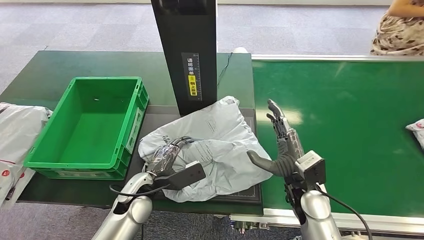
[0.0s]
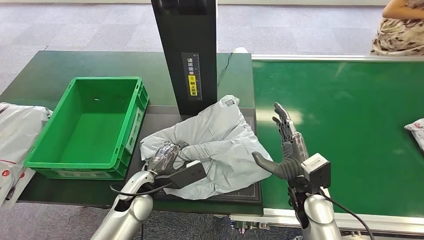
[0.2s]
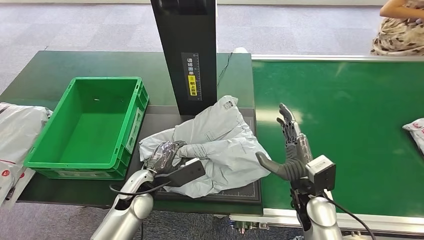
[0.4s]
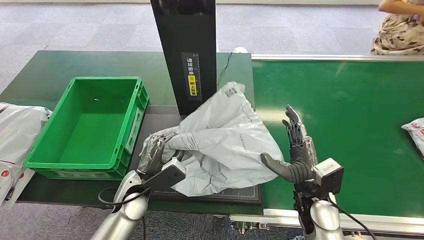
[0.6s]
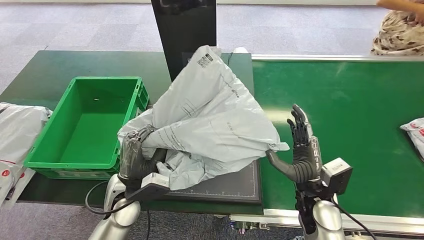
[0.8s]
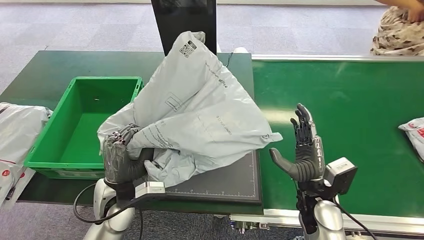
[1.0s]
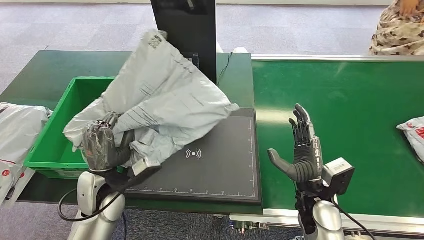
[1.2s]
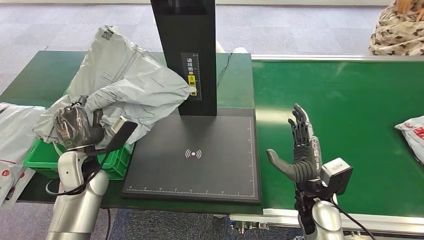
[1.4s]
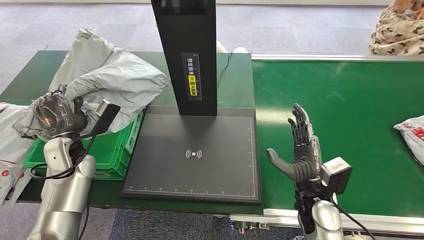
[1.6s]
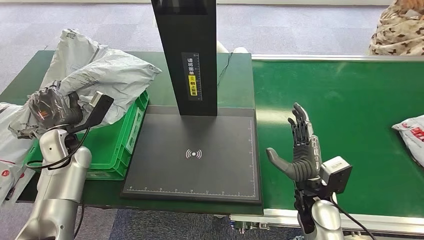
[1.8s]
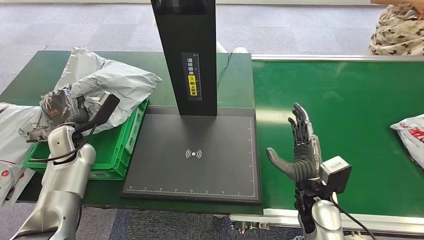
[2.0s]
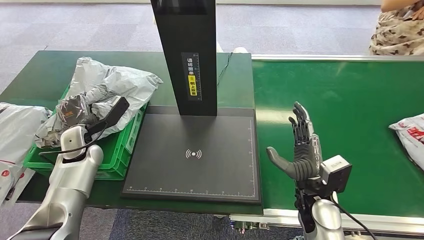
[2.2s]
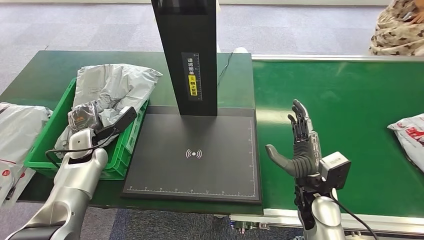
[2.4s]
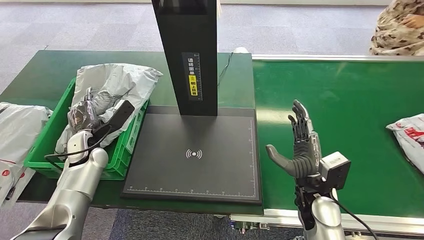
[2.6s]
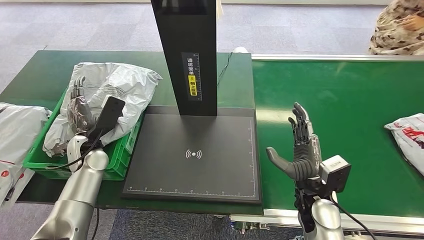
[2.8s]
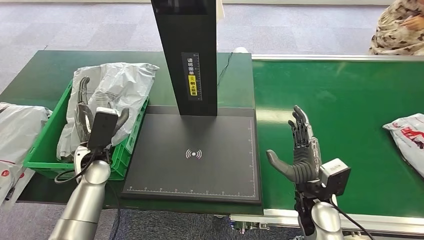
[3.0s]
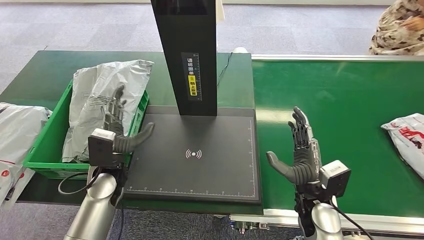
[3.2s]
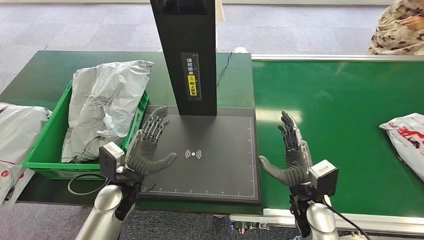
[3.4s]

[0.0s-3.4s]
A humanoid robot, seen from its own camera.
Step, 0.0s to 1.2s: Pick up the package from the inbound machine.
Step, 1.4s to 3.4s: Place the package into the parcel locker.

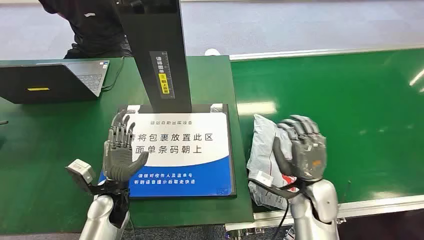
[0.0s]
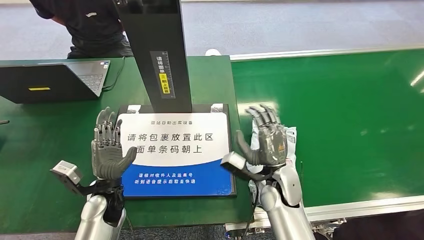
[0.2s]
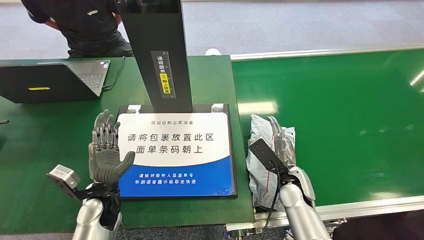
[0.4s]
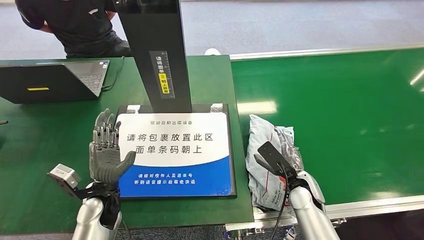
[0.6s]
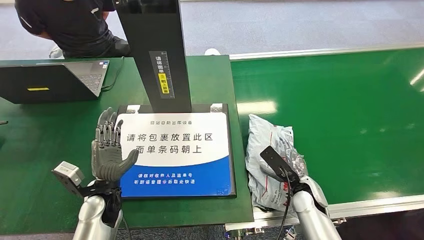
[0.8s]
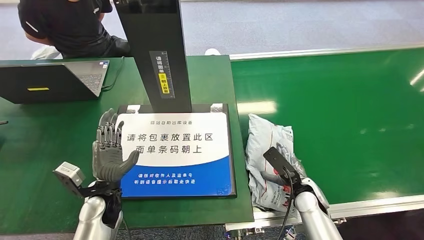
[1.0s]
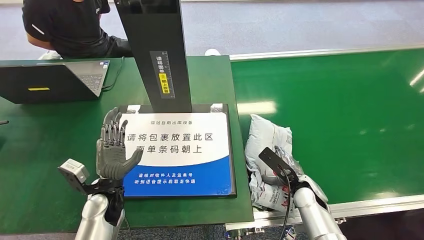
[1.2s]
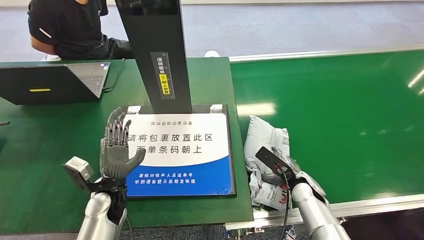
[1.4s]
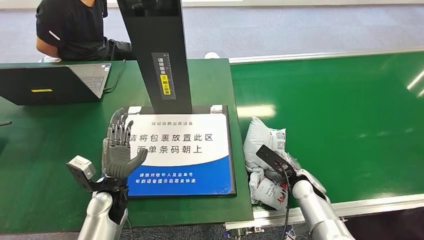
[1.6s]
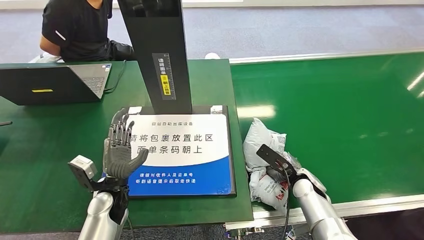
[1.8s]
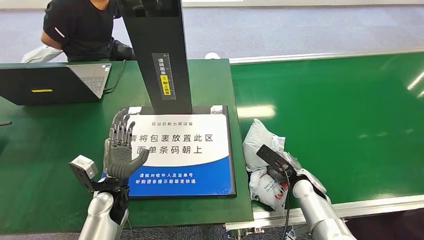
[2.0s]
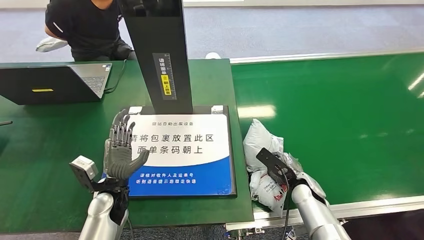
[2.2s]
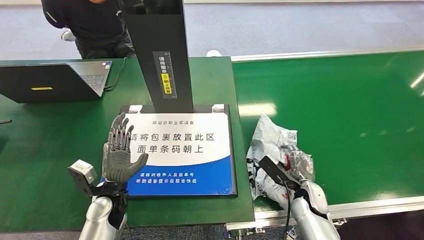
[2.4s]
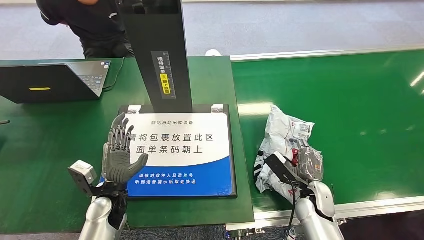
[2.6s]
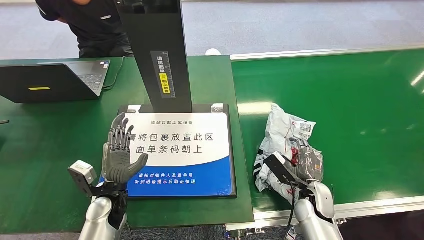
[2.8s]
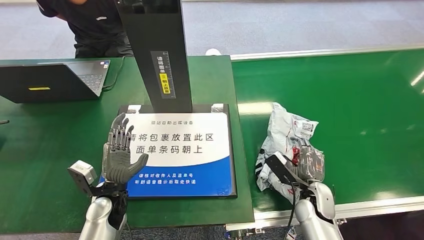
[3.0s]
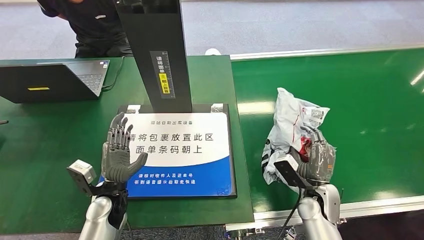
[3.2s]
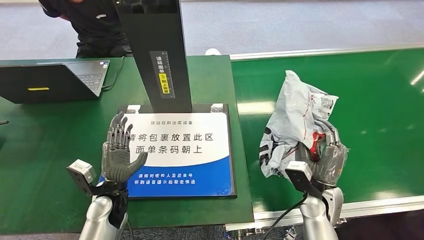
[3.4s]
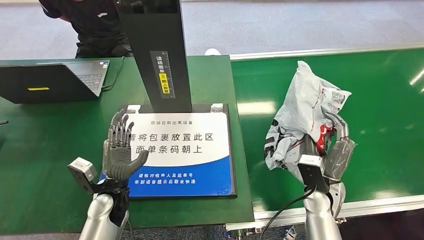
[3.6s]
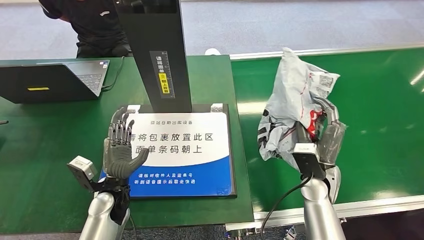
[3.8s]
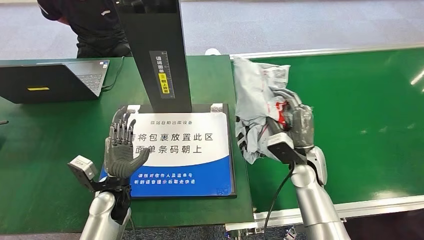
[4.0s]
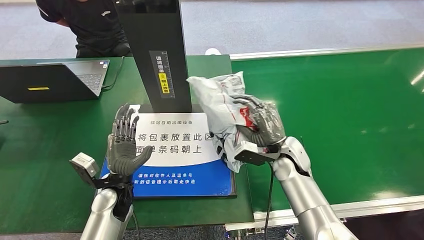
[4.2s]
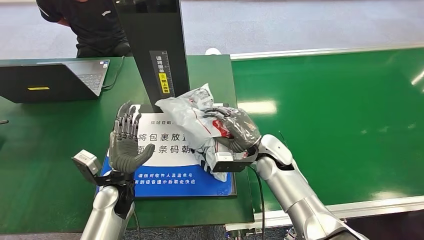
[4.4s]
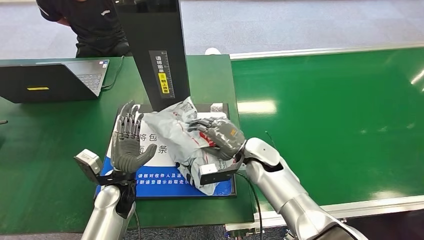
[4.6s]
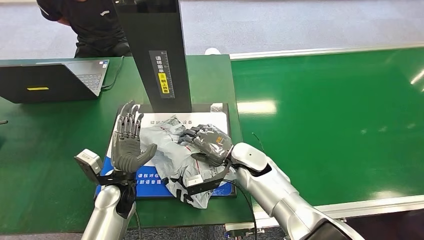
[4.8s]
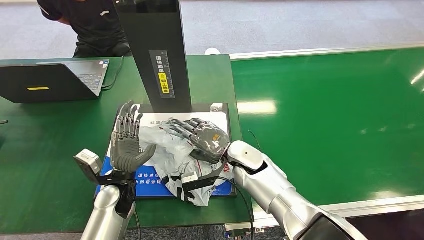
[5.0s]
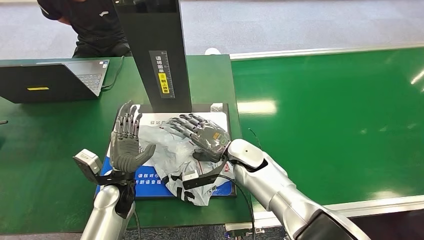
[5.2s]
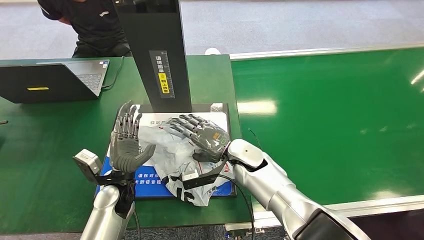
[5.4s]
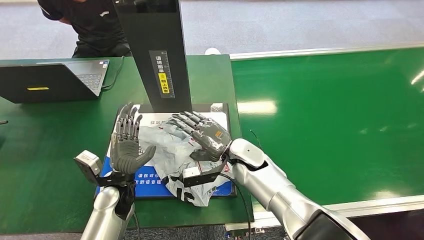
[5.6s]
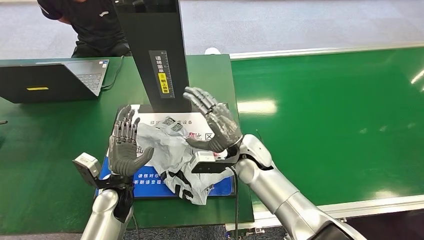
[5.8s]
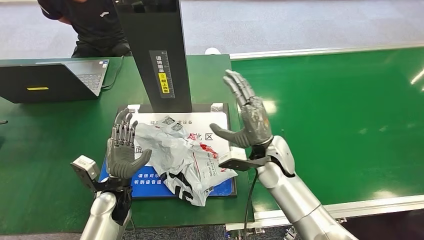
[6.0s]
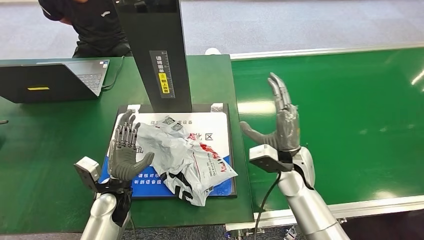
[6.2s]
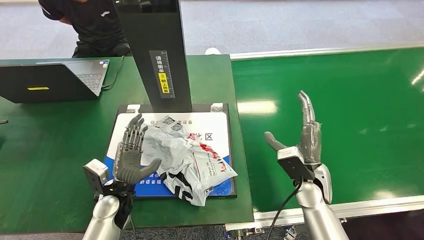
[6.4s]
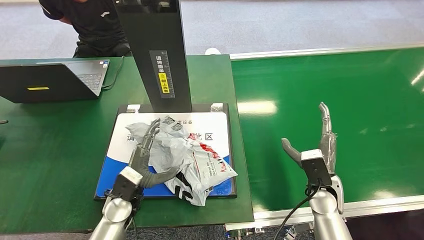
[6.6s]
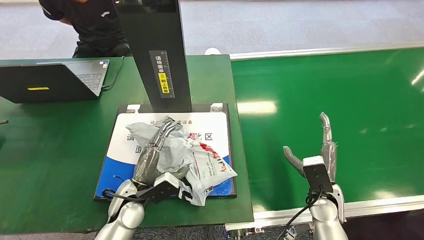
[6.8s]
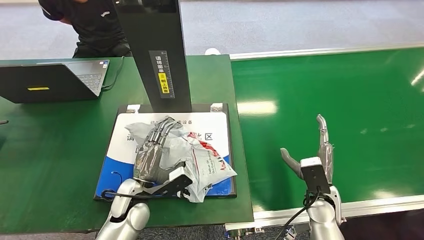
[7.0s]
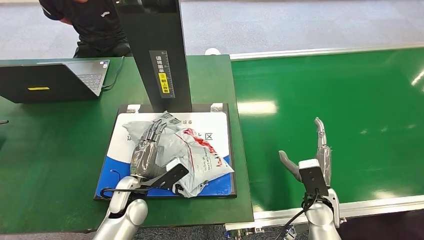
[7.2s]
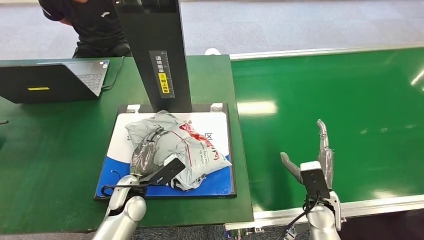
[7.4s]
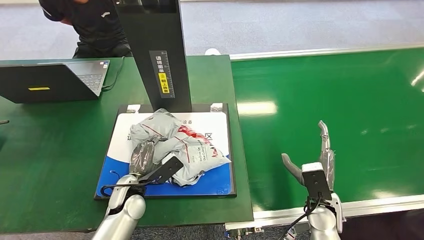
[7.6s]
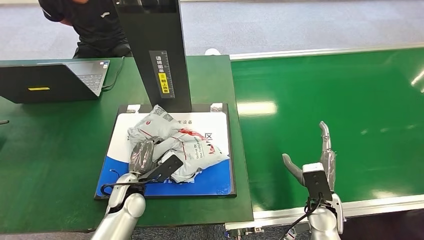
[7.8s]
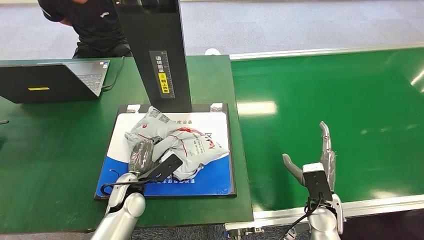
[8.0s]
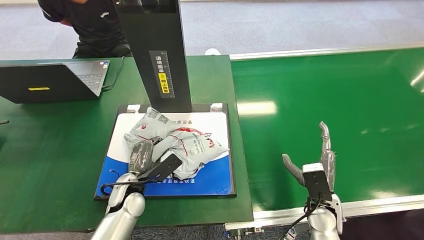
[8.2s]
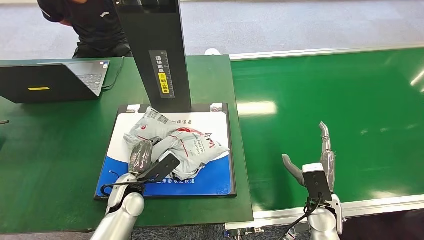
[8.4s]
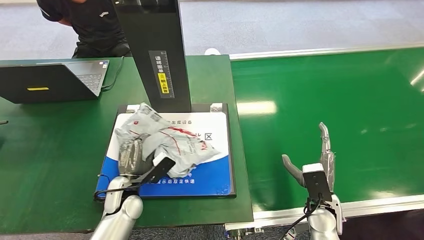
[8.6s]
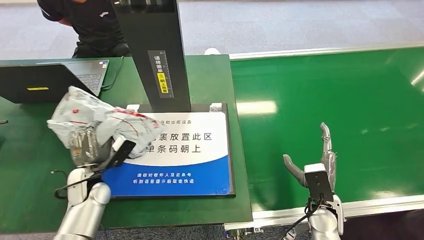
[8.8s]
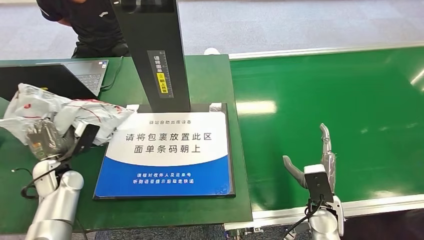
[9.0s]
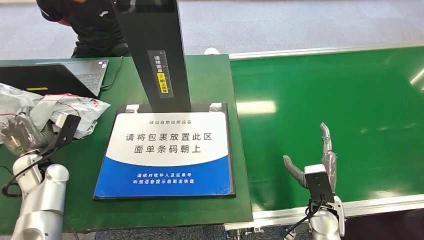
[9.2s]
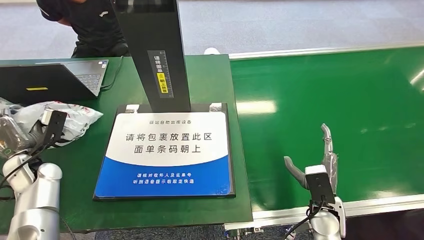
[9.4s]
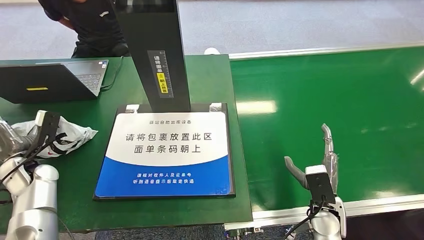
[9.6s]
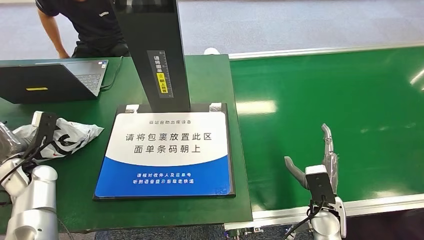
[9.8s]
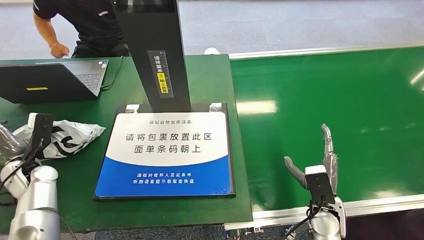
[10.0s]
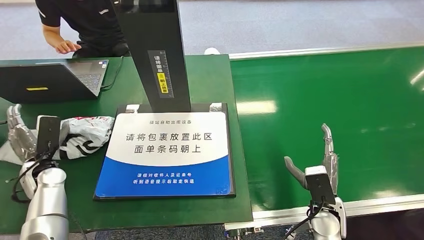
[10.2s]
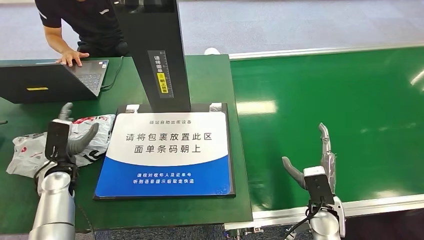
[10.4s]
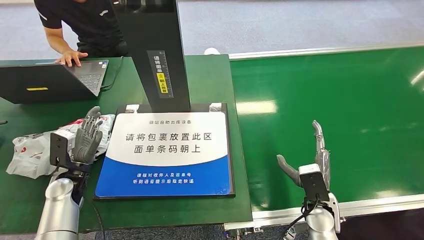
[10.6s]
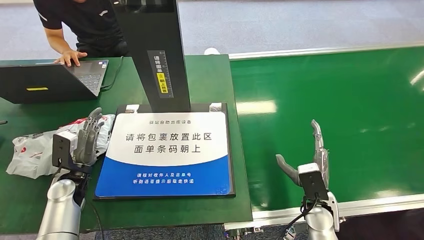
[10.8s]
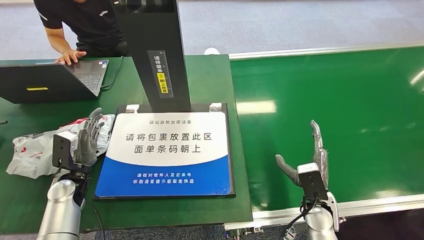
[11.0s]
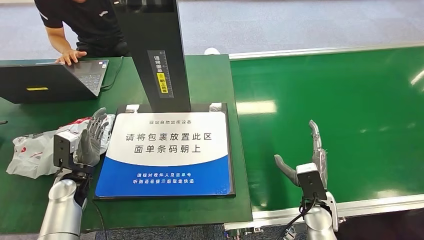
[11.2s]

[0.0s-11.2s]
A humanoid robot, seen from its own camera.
Step, 0.0s to 3.6s: Pick up the package from the conveyor belt.
Step, 3.8s to 6.2s: Place the package onto the inbound machine.
Step, 6.4s to 9.0s: Pick up the package from the inbound machine.
Step, 9.2s to 11.2s: Place the package into the parcel locker.
4.8s to 6.4s: The right hand is displaced to the right by approximately 15 cm.
6.4s to 8.0s: The right hand travels backward and downward by some 5 cm.
8.0s to 9.6s: The left hand shifts about 25 cm to the left.
9.6s to 11.2s: The left hand moves to the right, roughly 10 cm.
